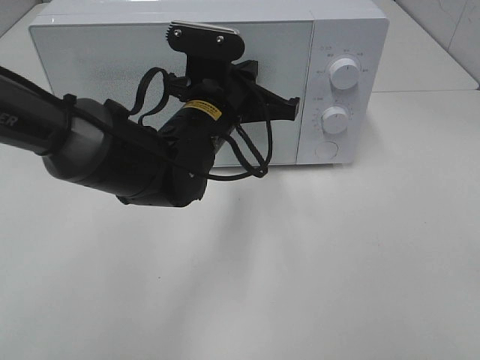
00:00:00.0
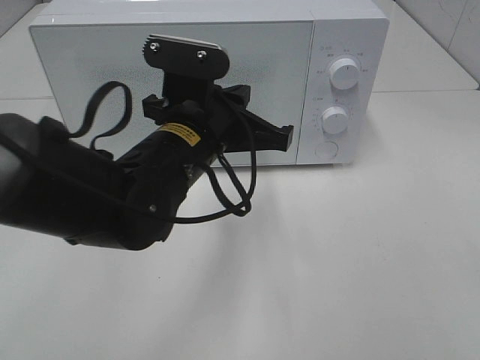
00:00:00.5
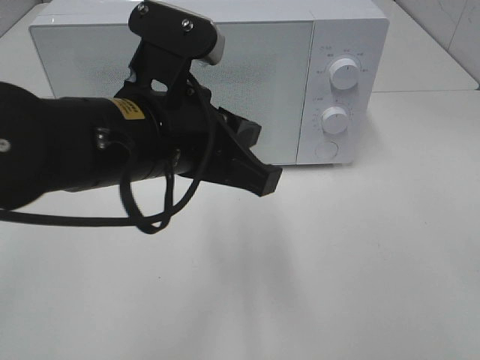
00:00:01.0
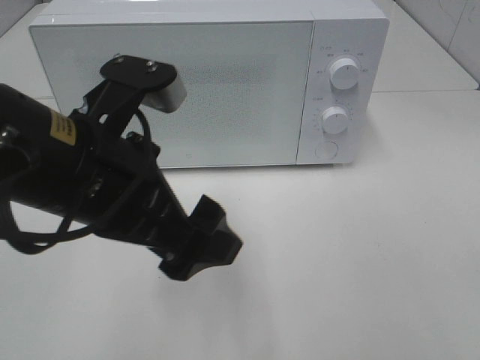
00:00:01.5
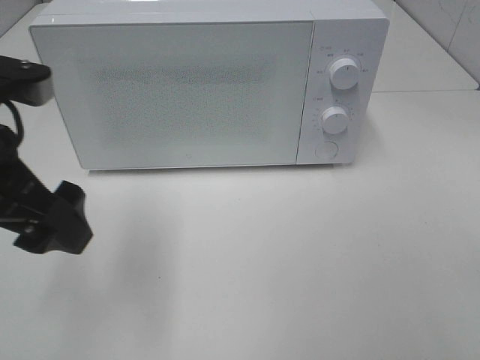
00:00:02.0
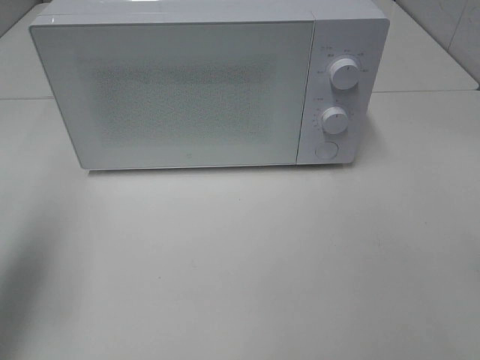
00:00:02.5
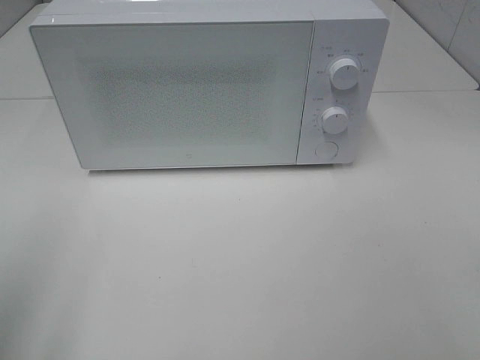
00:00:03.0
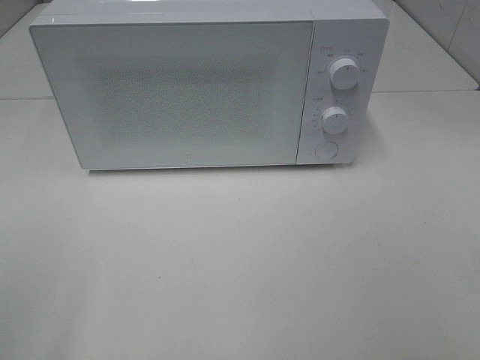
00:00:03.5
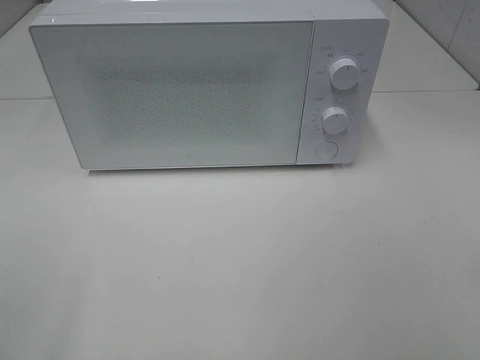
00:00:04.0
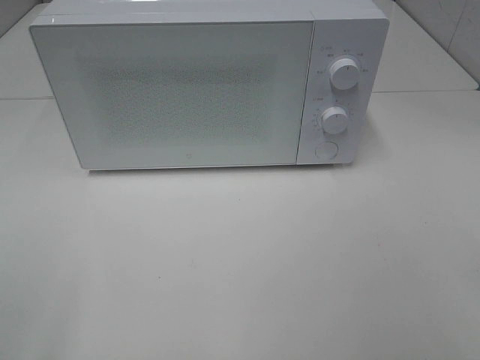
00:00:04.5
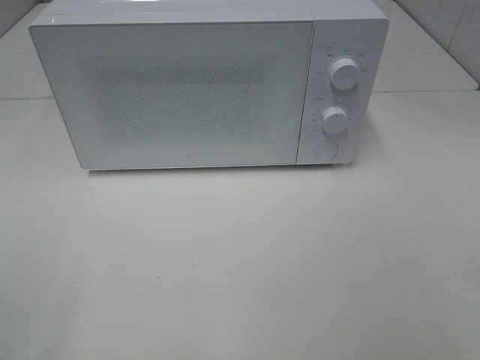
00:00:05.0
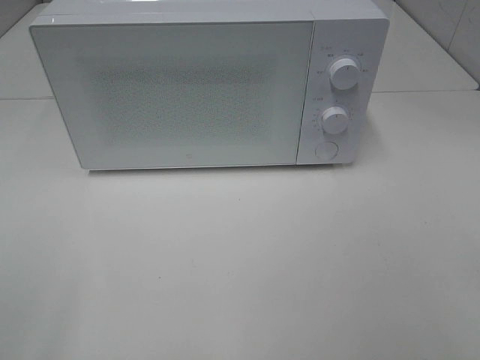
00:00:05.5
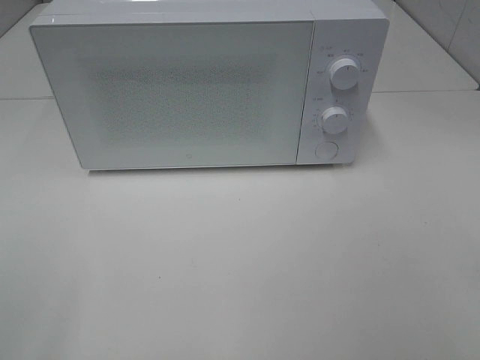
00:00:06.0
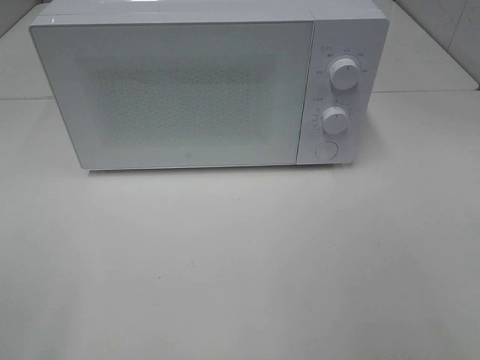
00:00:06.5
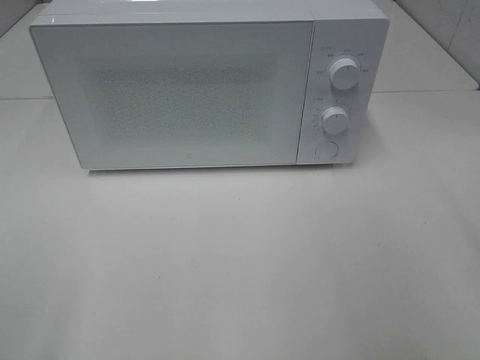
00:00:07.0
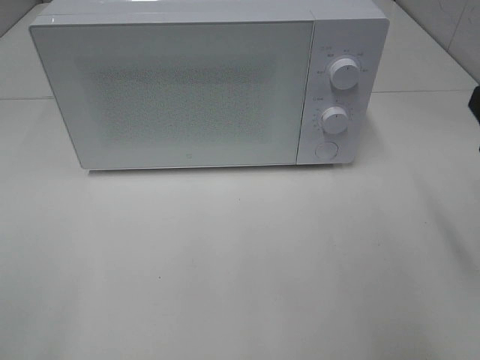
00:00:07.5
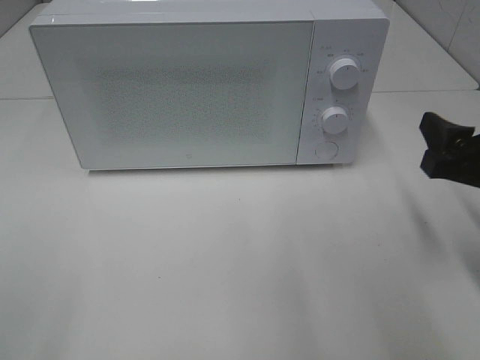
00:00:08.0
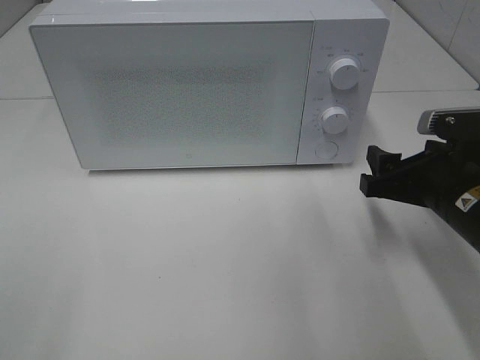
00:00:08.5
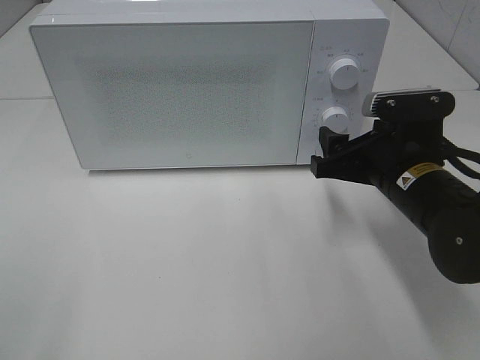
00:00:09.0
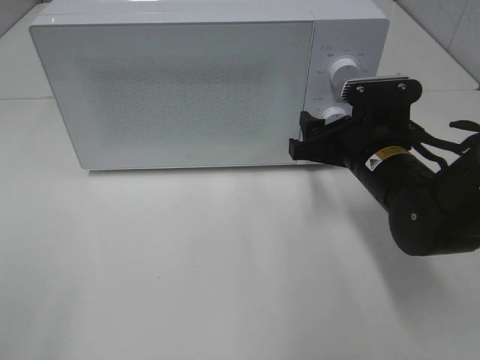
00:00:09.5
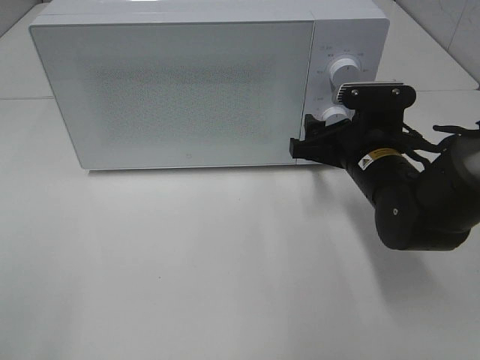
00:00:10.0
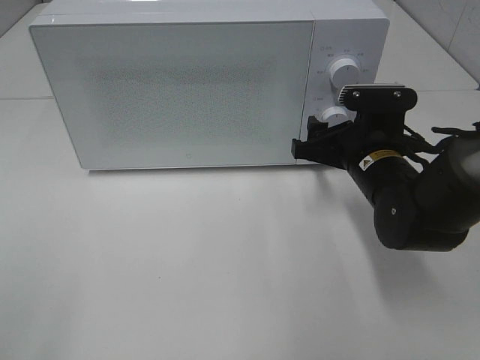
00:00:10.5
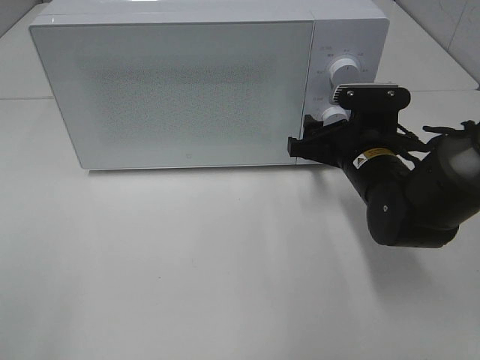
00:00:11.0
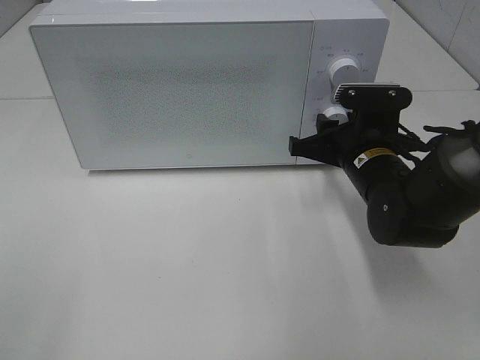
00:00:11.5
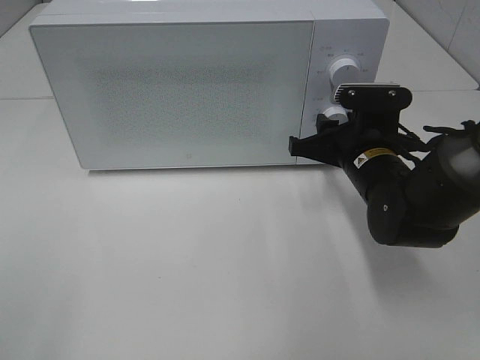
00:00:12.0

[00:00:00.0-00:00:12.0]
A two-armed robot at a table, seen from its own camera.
Task of the whole recording: Heat the burger.
00:00:00.0 to 00:00:02.0: The left gripper goes roughly 25 cm to the left, backward and upward, and opens up.
00:00:02.0 to 00:00:04.0: The left gripper goes some 25 cm backward and to the left.
00:00:04.0 to 00:00:06.0: Both grippers stay put.
00:00:06.0 to 00:00:08.0: The right gripper moves forward and downward, about 25 cm.
00:00:08.0 to 00:00:10.0: The right gripper moves forward, to the left and downward, approximately 15 cm.
00:00:10.0 to 00:00:12.0: The right gripper closes up.

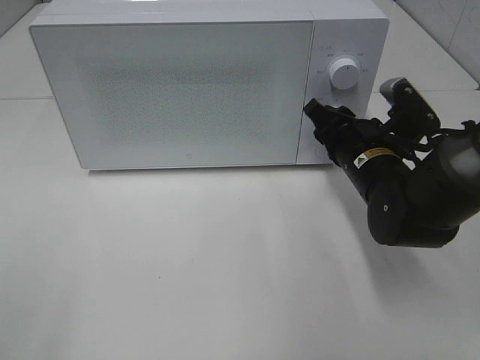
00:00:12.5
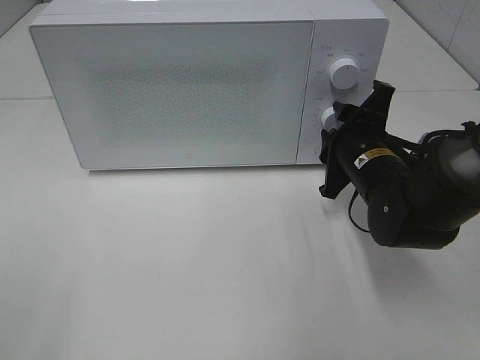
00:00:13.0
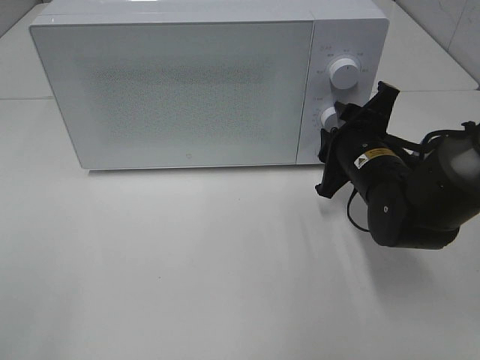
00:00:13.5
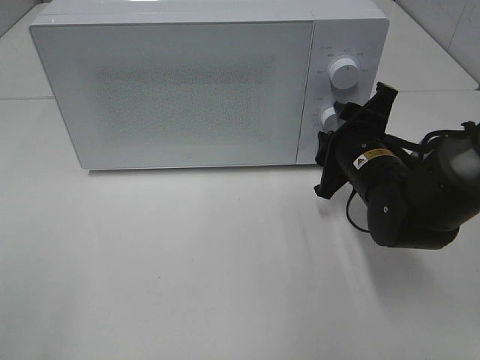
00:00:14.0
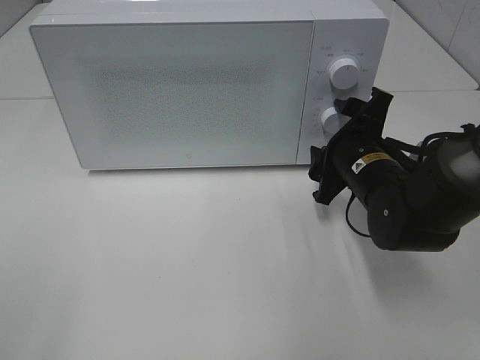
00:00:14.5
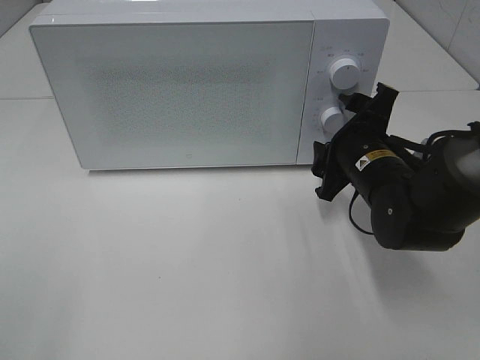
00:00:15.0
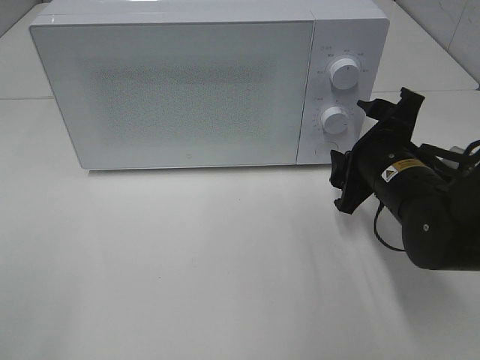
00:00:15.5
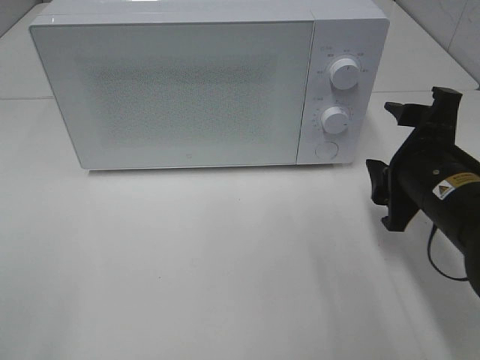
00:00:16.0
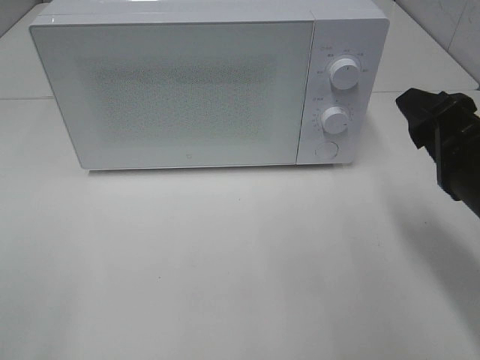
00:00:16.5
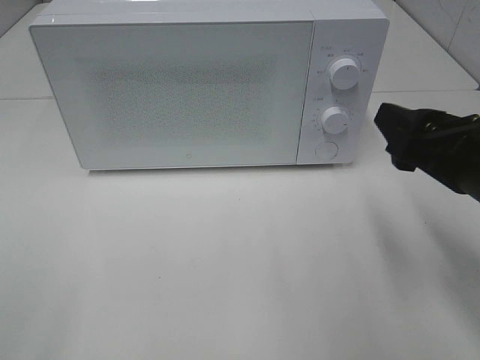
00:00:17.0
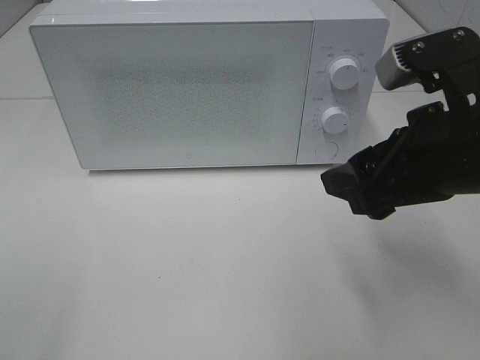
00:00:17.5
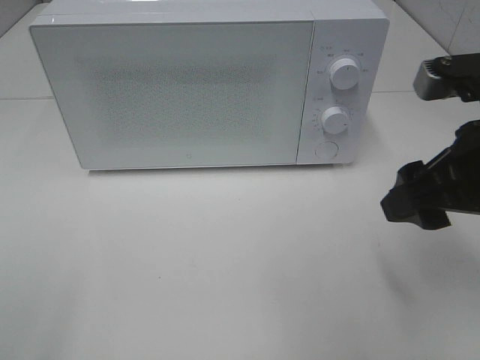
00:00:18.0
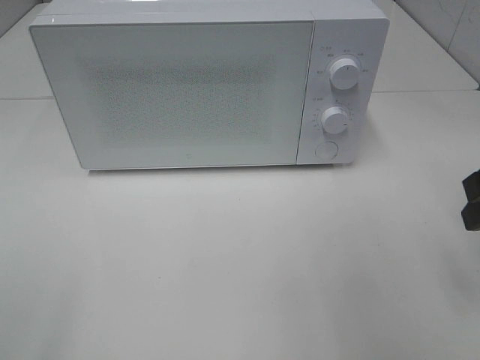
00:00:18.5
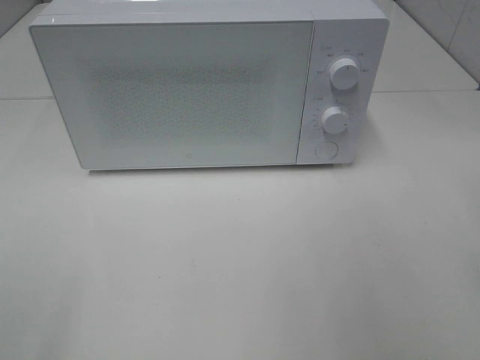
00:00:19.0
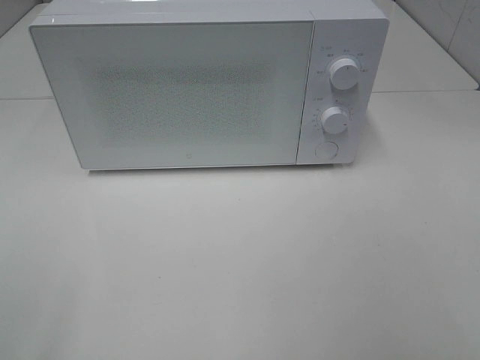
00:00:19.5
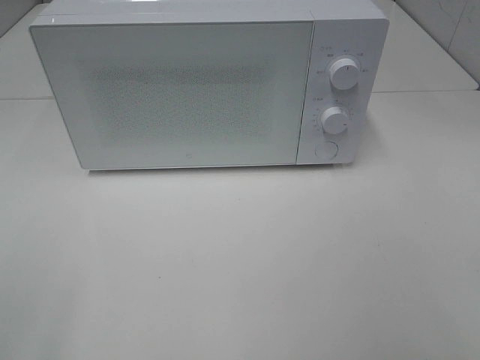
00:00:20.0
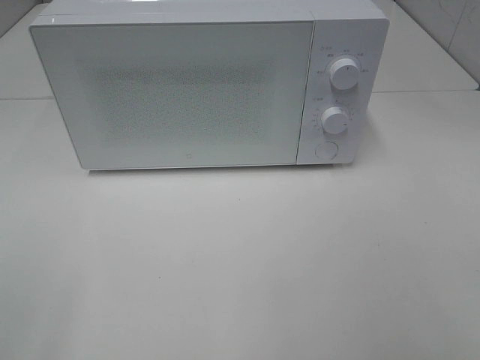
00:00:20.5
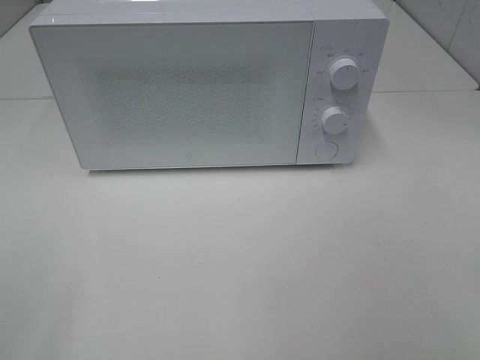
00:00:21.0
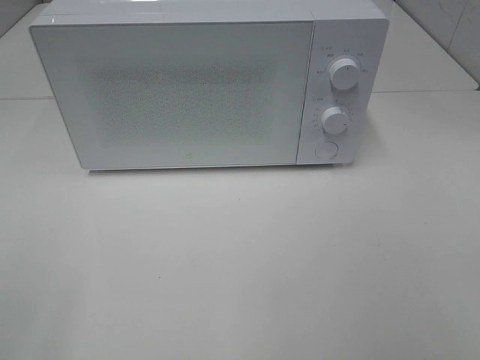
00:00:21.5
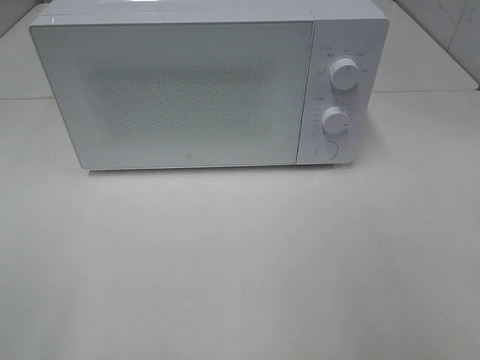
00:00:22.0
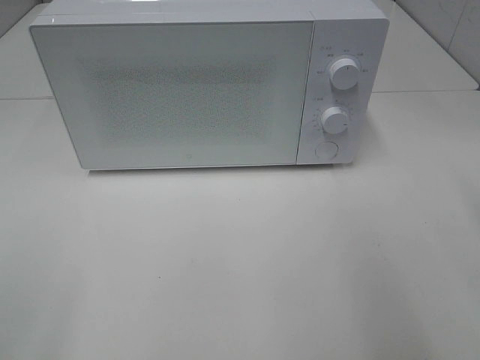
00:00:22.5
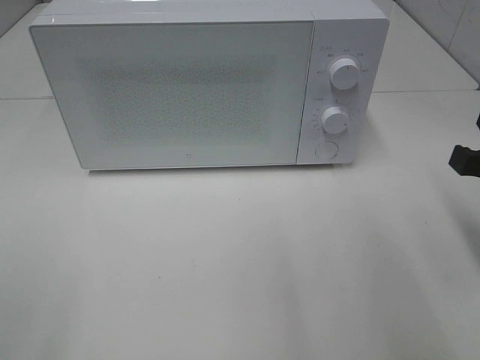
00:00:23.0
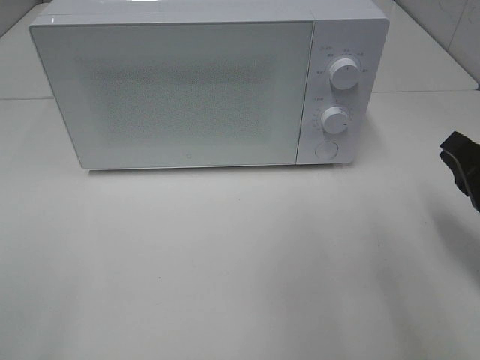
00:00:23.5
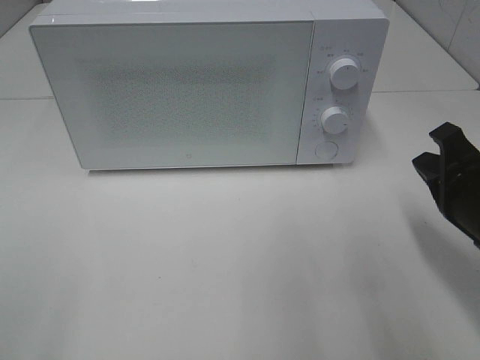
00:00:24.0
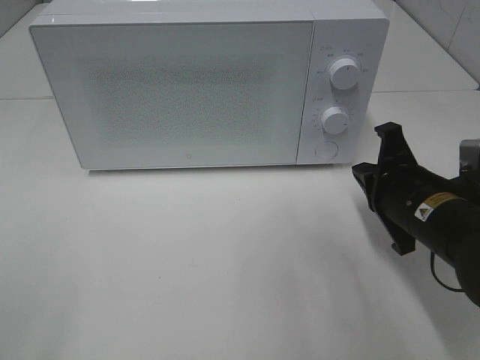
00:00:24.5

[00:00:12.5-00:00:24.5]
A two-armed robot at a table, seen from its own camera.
Task of the whole recording: Heat the burger.
00:00:12.5 to 00:00:14.5: The right gripper opens.
00:00:14.5 to 00:00:16.5: The right gripper moves backward, upward and to the right, some 15 cm.
00:00:16.5 to 00:00:18.5: The right gripper moves to the right, some 5 cm.
00:00:22.5 to 00:00:24.5: The right gripper shifts roughly 20 cm downward, forward and to the left.

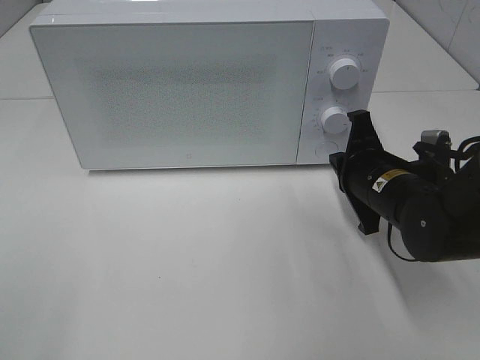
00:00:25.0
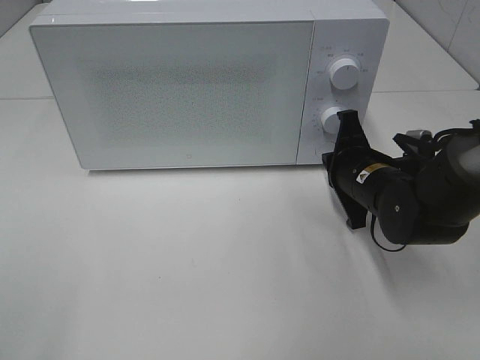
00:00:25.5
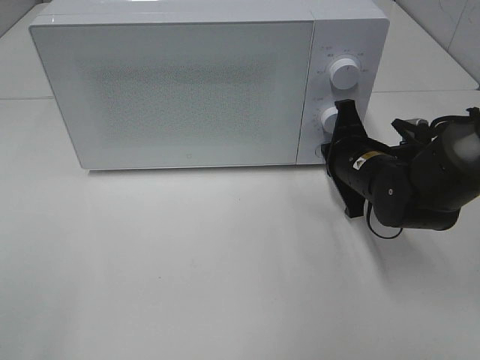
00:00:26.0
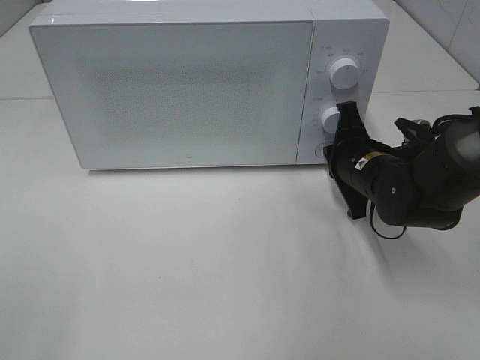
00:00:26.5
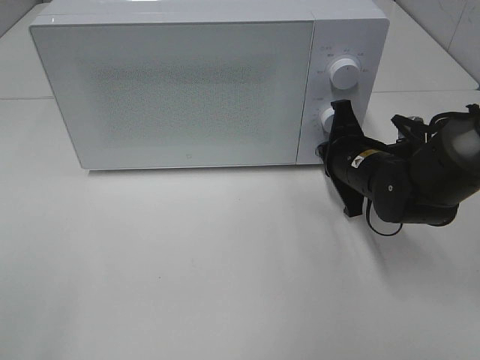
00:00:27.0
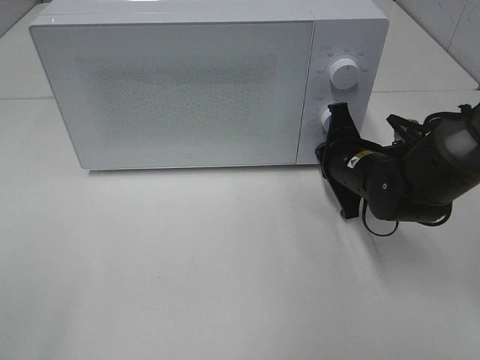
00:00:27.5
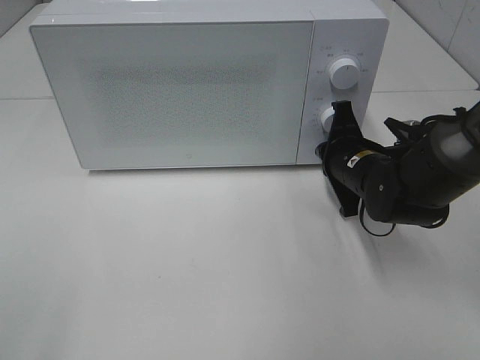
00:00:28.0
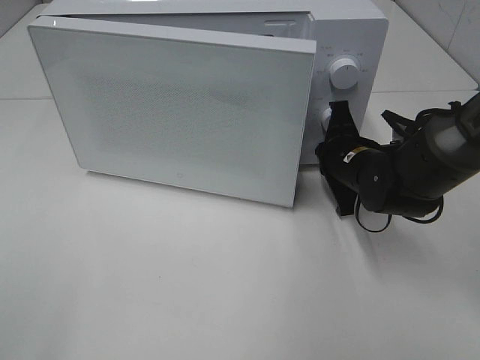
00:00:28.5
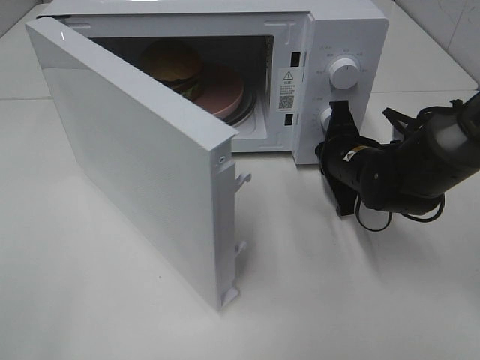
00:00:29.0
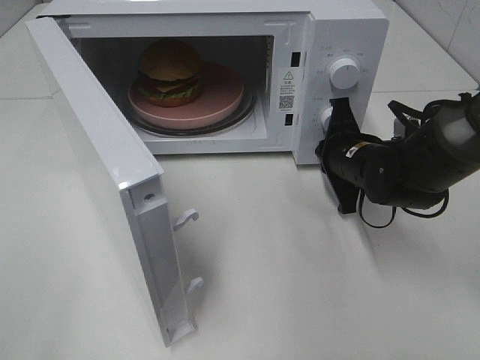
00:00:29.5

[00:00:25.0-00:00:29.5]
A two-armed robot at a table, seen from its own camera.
Task of the whole recording: Heat the burger.
00:00:25.0 to 00:00:27.0: The grippers move only a little.
